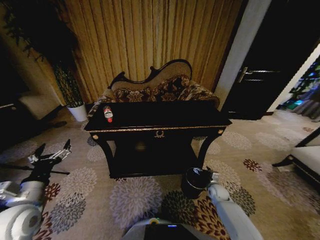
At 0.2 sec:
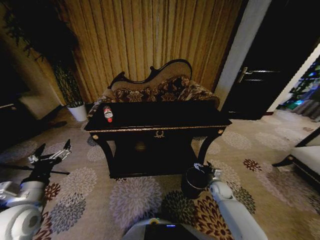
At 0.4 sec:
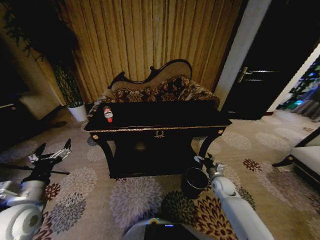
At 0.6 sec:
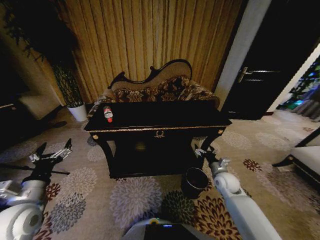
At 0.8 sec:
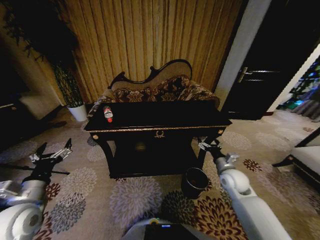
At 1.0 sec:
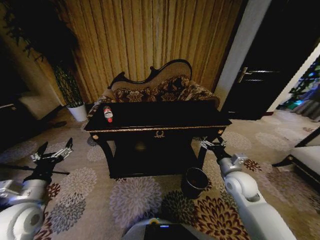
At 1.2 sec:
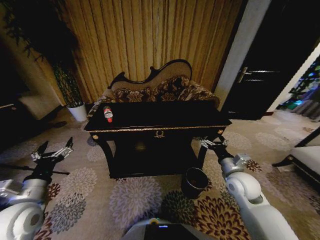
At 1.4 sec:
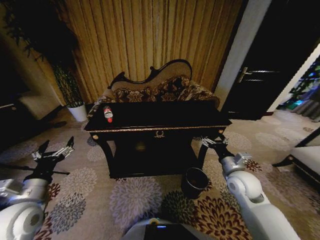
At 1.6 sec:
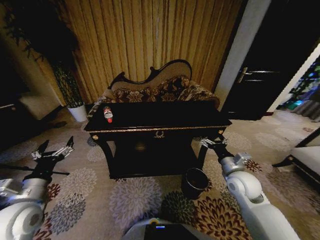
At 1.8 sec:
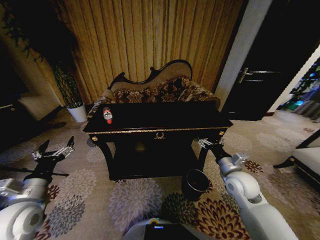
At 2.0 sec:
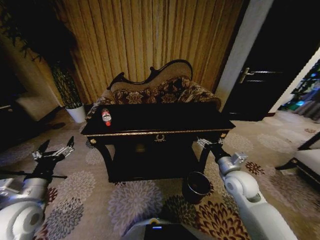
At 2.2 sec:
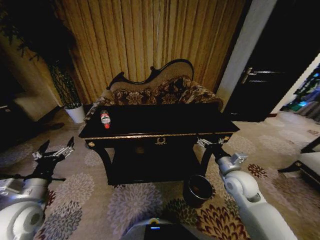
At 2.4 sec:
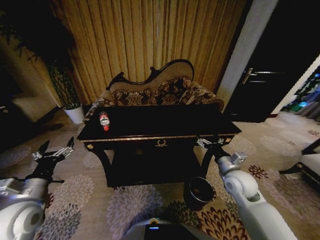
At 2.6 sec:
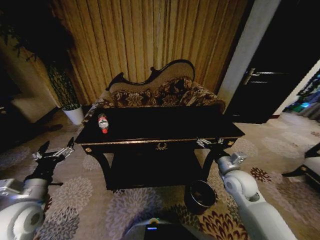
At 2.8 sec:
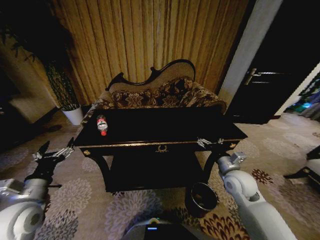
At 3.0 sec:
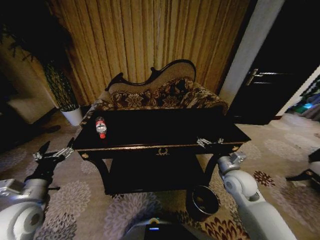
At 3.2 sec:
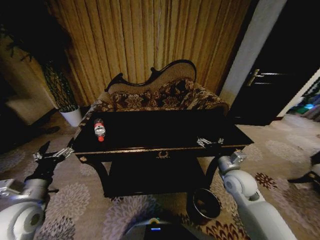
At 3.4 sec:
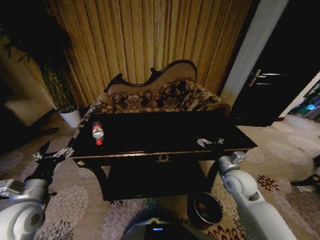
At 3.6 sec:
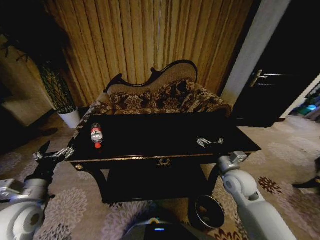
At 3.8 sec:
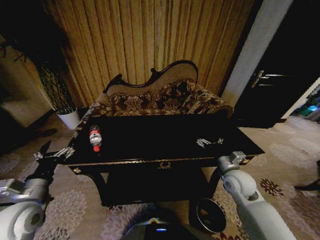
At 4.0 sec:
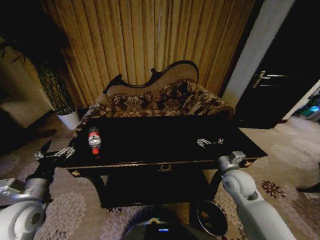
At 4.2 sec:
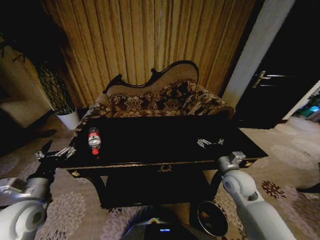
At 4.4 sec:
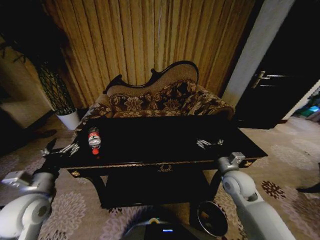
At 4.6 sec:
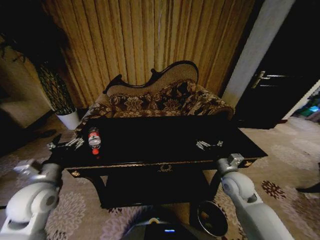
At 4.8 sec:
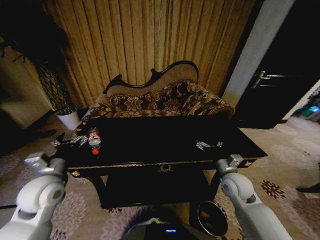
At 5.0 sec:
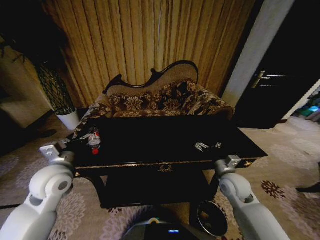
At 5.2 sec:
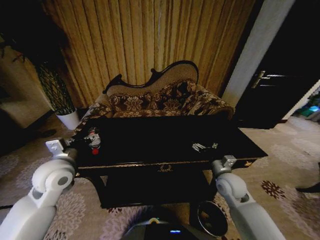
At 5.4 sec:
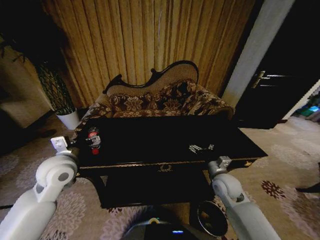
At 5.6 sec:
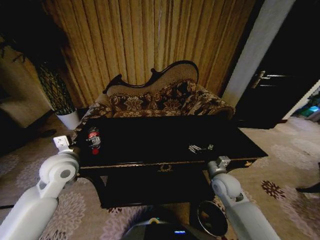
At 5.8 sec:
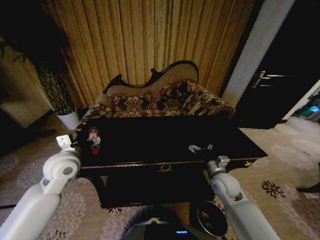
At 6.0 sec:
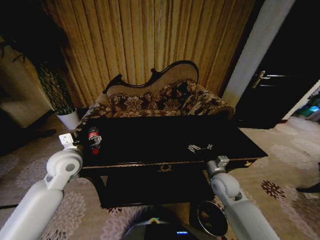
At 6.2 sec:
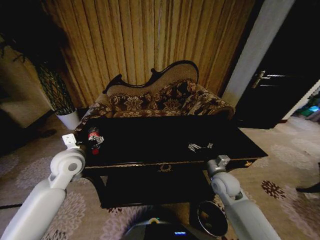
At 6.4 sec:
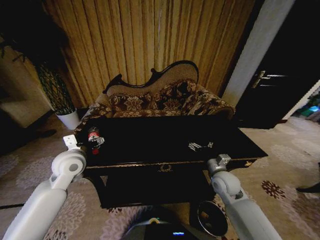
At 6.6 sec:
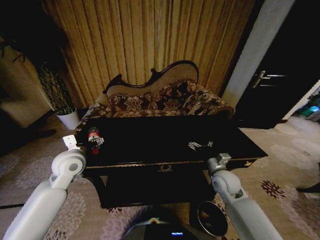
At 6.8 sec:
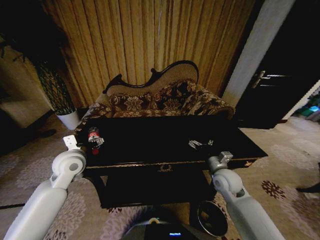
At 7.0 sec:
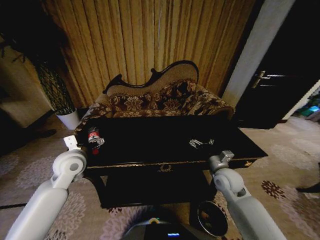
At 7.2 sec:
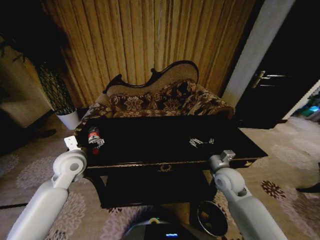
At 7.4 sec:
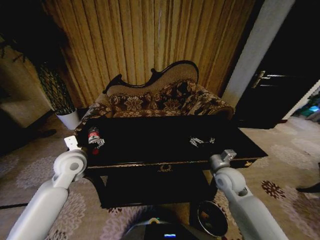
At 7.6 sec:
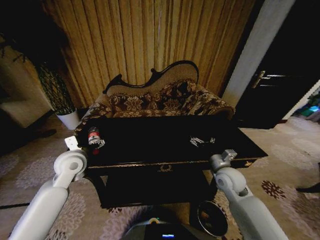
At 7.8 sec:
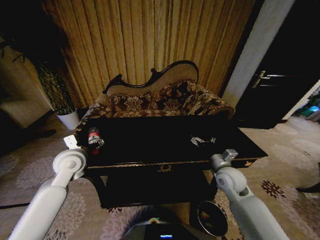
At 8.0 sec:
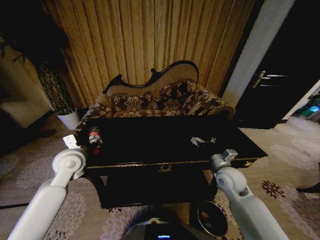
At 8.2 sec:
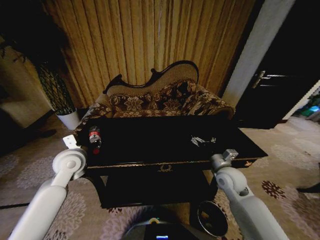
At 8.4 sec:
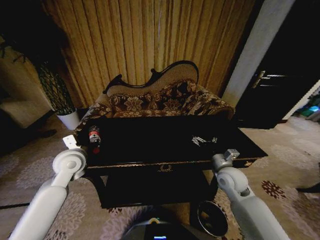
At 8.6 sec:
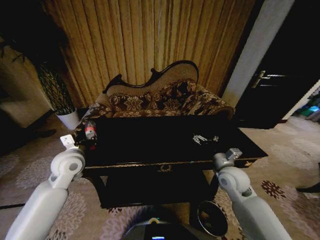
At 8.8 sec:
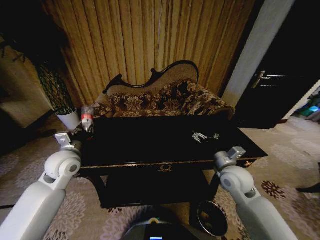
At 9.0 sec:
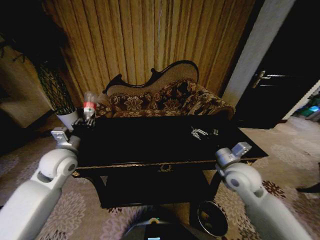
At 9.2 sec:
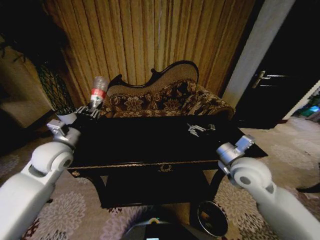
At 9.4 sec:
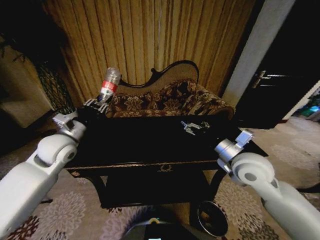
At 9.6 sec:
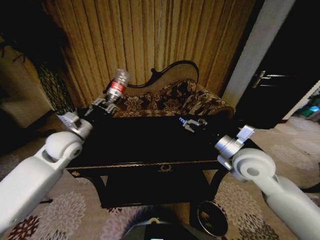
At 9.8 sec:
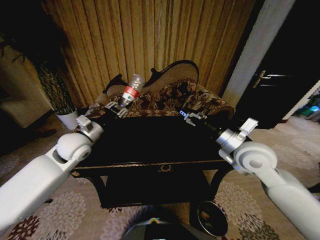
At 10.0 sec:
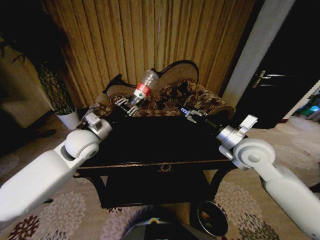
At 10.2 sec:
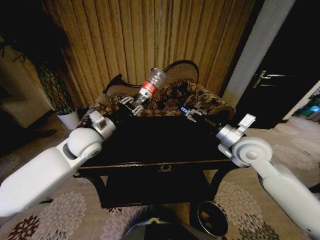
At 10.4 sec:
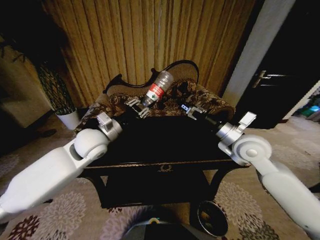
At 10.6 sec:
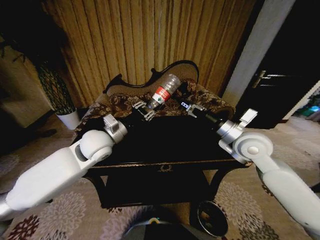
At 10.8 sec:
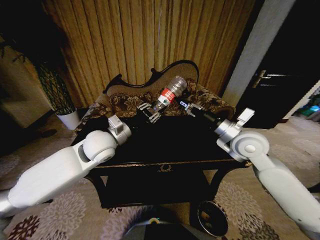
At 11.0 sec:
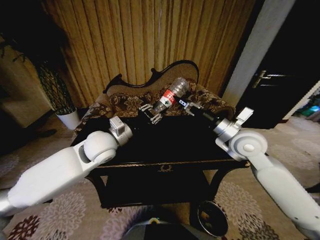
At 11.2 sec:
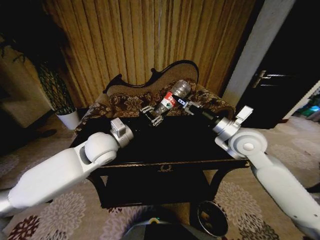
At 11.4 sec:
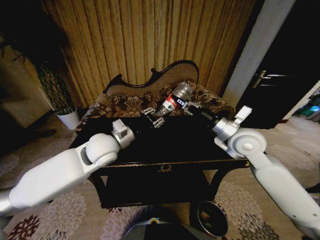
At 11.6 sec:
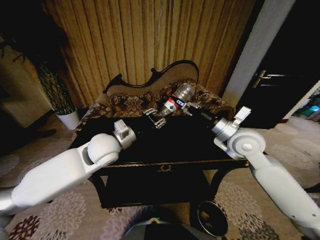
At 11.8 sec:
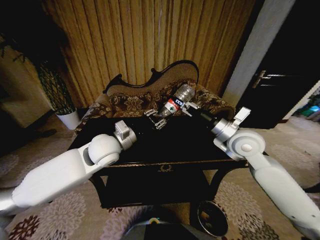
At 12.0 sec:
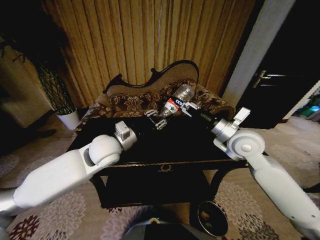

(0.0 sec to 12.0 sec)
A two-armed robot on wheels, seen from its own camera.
Task of the whole recording: Move to the front of the table and place the trash on the table into the trash bin.
0.0 sec - 1.6 sec: The right gripper goes some 25 cm upward.
4.4 sec - 6.0 sec: The left gripper goes approximately 15 cm forward and to the right. The right gripper shifts by about 5 cm.
6.0 sec - 7.6 sec: The grippers move only a little.
7.6 sec - 9.0 sec: The right gripper moves upward, approximately 10 cm, while the left gripper closes up.
9.0 sec - 10.4 sec: The right gripper shifts roughly 10 cm upward and forward; the left gripper heads to the right, covering about 10 cm.
10.4 sec - 12.0 sec: The right gripper closes up. Meanwhile the left gripper shifts by some 5 cm.

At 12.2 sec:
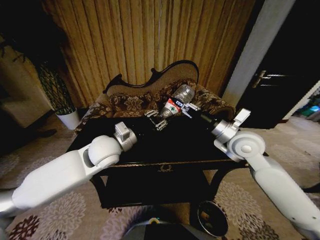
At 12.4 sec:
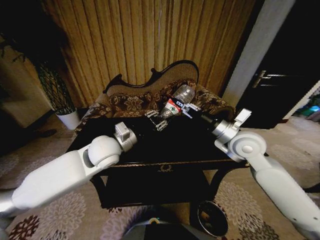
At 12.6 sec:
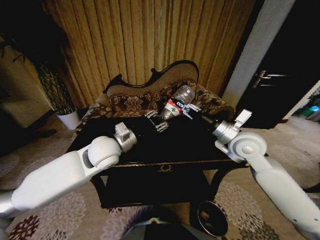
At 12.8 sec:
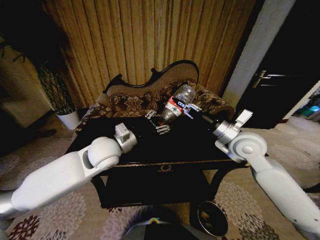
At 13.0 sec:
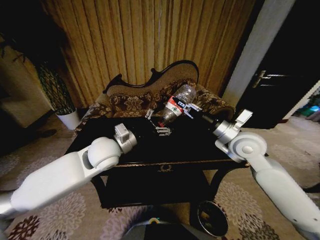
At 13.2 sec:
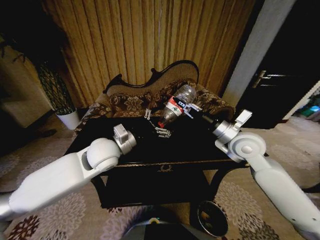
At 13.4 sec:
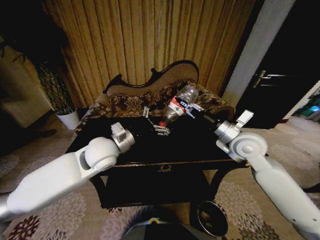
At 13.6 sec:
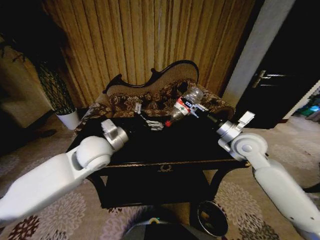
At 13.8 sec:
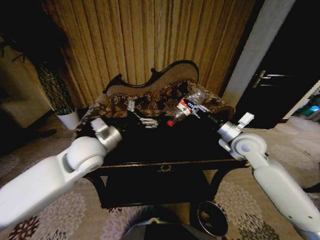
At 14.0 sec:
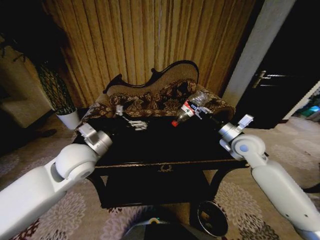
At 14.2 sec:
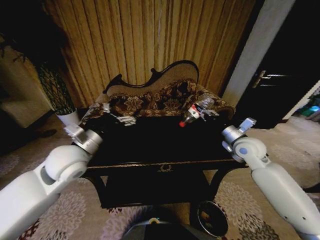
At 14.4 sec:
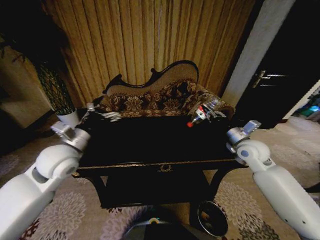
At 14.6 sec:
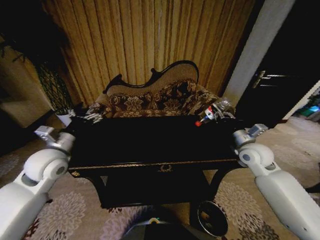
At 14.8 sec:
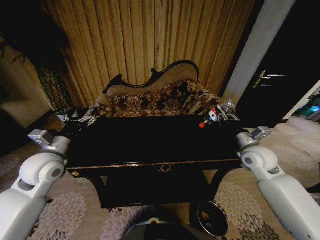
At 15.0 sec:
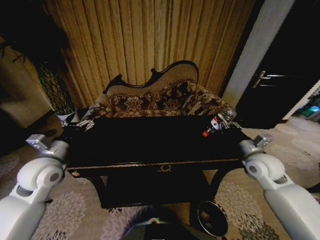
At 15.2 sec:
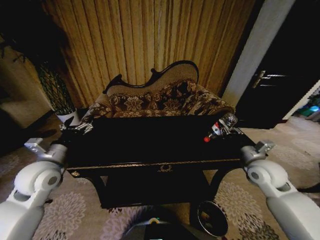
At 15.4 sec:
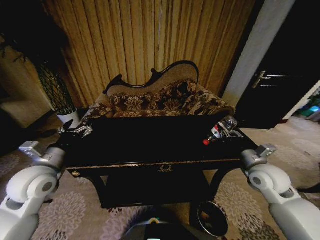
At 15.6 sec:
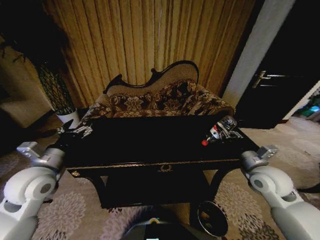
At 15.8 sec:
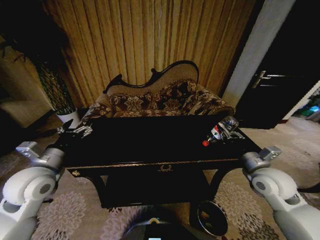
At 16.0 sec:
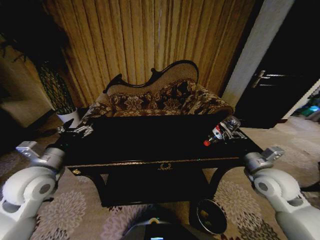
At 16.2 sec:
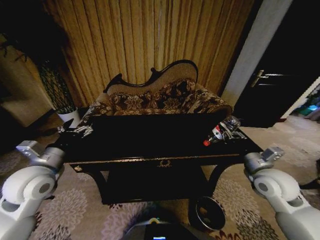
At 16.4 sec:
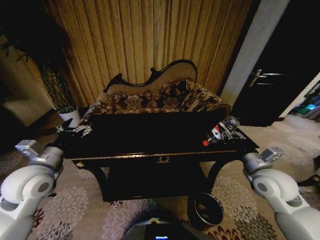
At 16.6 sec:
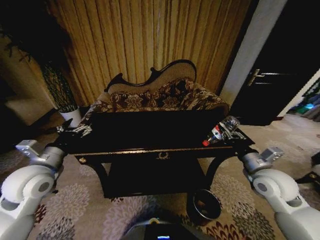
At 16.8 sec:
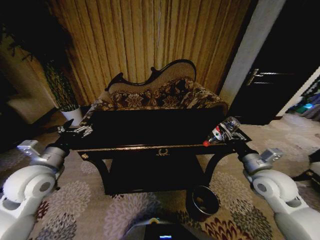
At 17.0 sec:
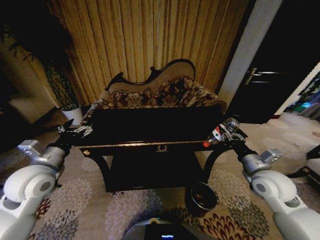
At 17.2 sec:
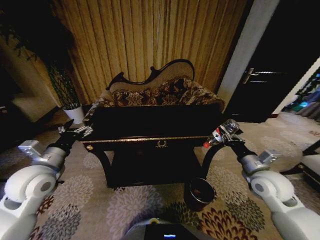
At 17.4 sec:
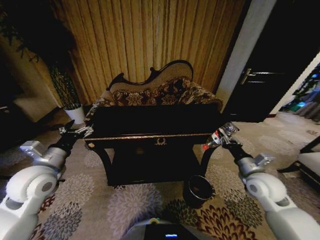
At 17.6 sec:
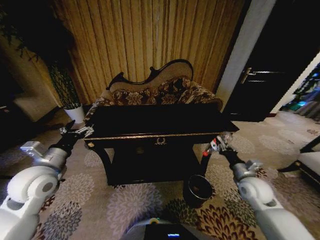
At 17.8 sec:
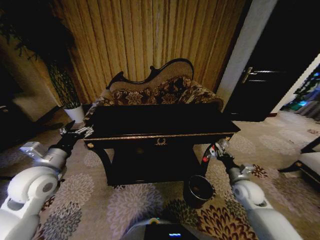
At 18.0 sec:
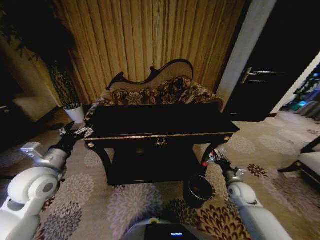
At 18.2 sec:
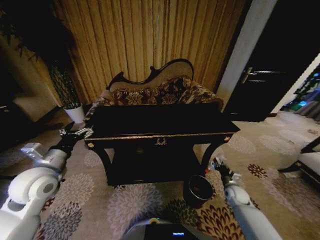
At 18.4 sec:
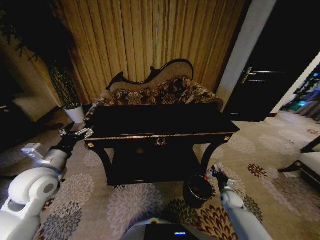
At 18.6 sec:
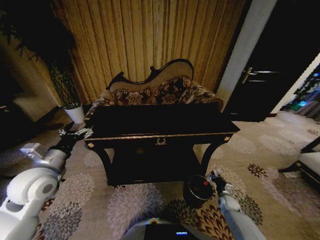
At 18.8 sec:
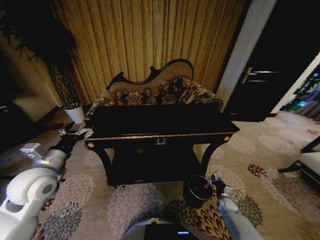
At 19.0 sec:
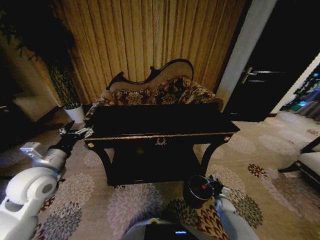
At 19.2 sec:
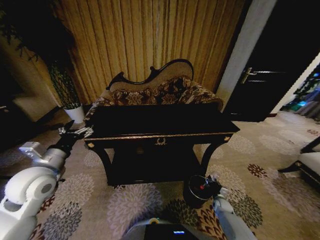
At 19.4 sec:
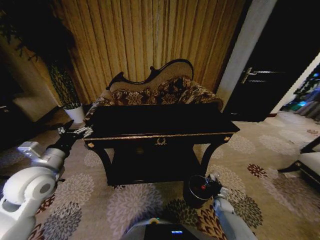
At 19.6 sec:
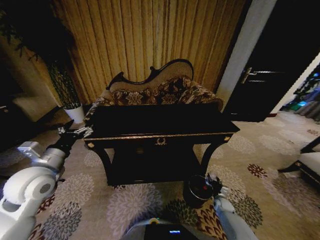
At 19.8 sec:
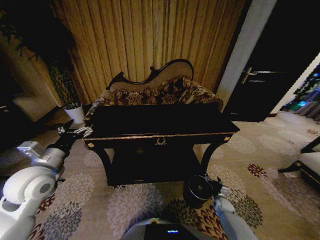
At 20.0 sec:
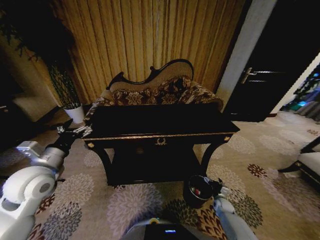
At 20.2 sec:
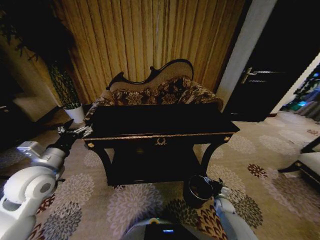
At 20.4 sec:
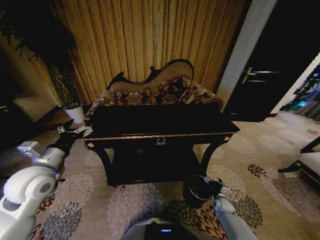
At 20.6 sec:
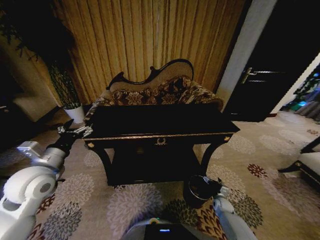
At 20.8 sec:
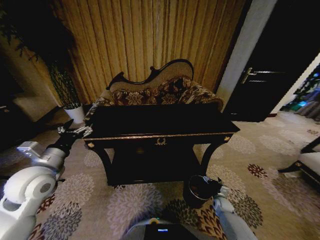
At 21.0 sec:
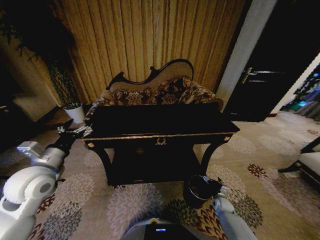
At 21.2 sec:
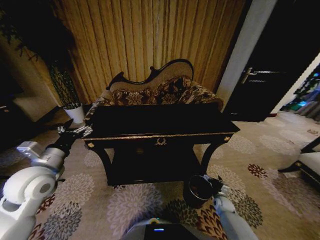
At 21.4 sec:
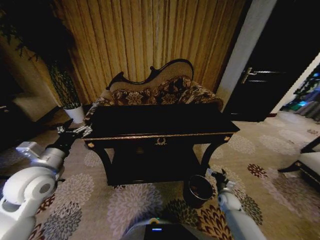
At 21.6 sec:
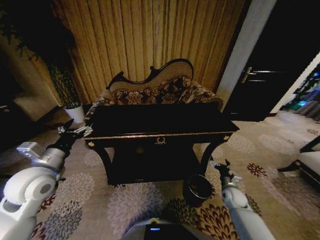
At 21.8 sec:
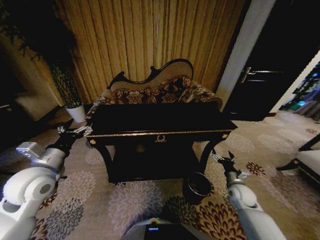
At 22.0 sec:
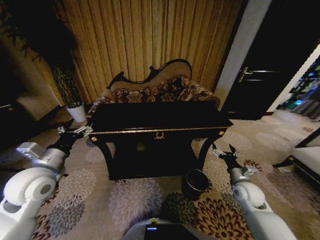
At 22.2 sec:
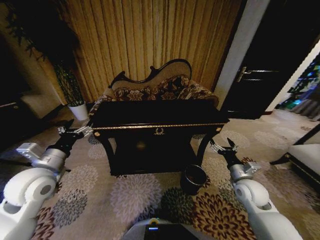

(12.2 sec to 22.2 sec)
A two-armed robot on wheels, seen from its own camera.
Task of the whole recording: Move to the front of the table and place the trash on the table into the trash bin.
12.2 sec - 13.6 sec: The left gripper opens its fingers.
13.6 sec - 15.0 sec: The right gripper moves to the right and downward, some 10 cm. Meanwhile the left gripper is displaced to the left by roughly 15 cm.
15.0 sec - 16.4 sec: The right gripper moves backward, approximately 5 cm.
16.4 sec - 18.0 sec: The right gripper goes about 20 cm downward.
18.0 sec - 19.4 sec: The right gripper goes about 20 cm downward.
20.8 sec - 22.2 sec: The right gripper heads upward, covering some 30 cm.
